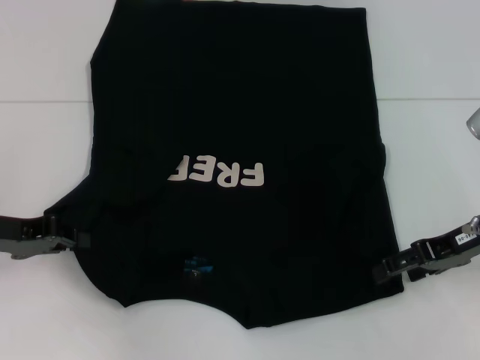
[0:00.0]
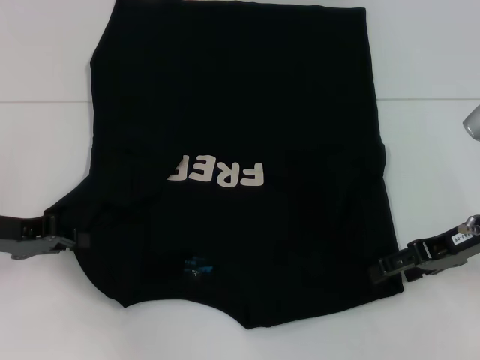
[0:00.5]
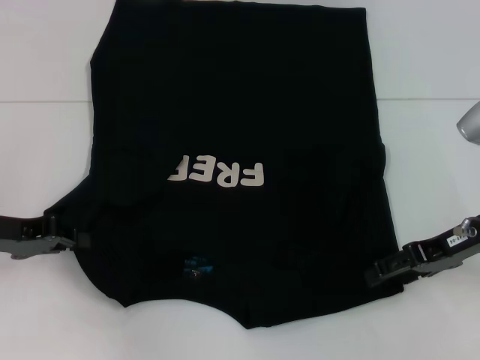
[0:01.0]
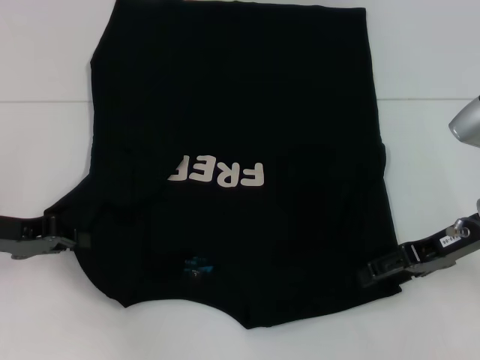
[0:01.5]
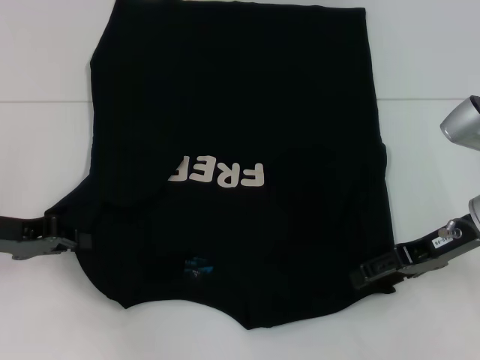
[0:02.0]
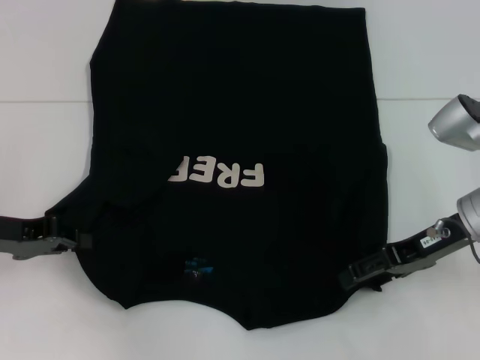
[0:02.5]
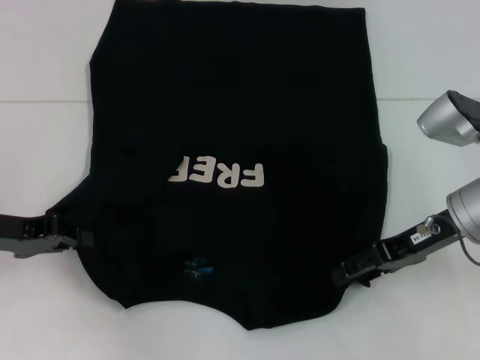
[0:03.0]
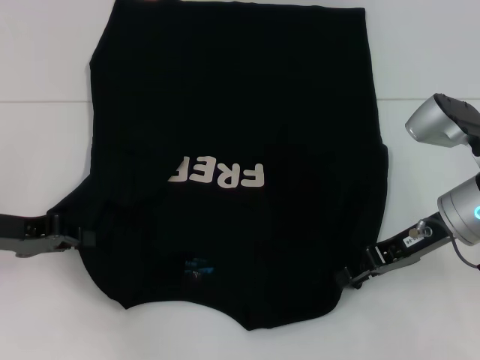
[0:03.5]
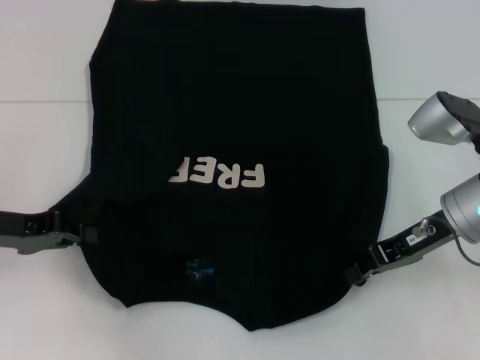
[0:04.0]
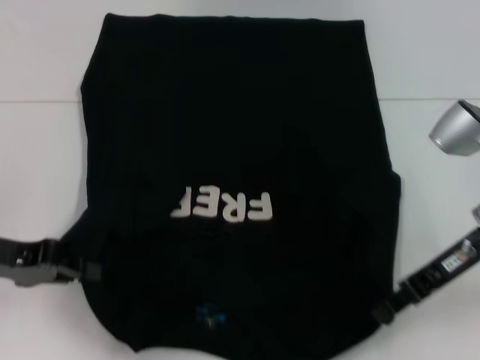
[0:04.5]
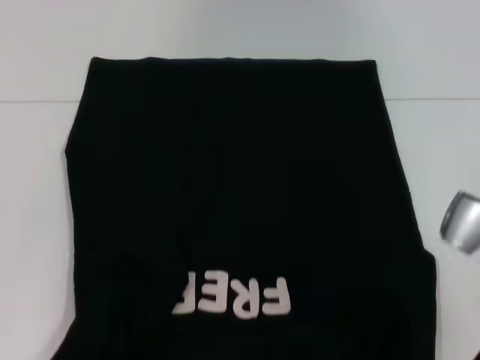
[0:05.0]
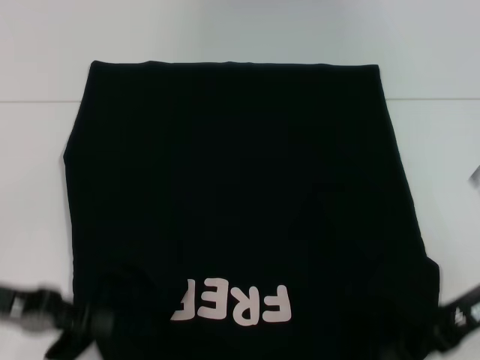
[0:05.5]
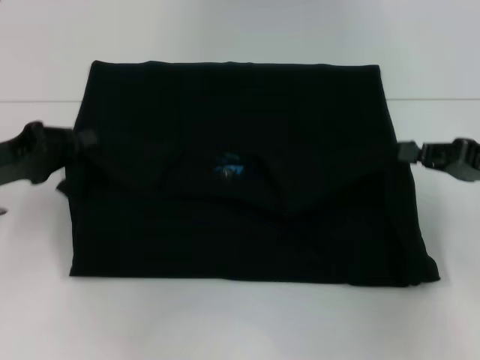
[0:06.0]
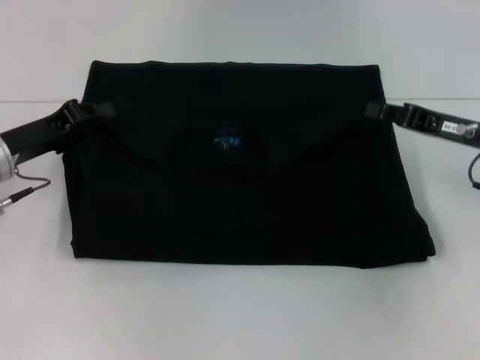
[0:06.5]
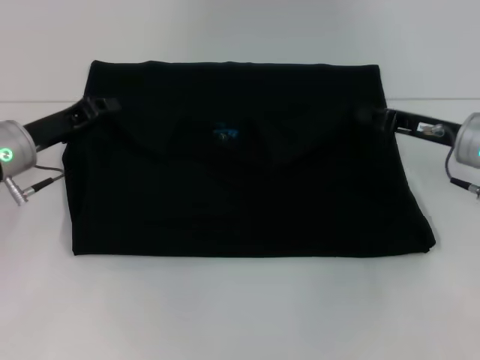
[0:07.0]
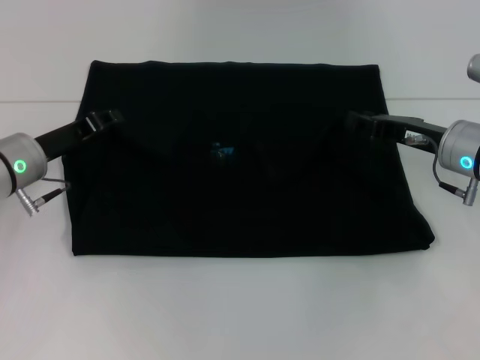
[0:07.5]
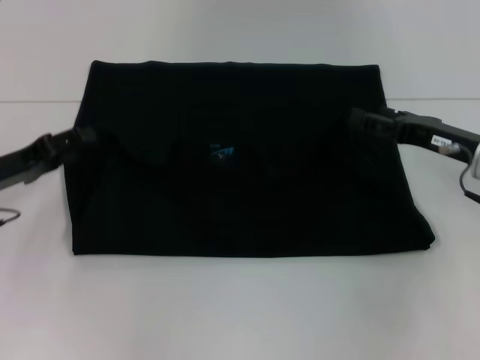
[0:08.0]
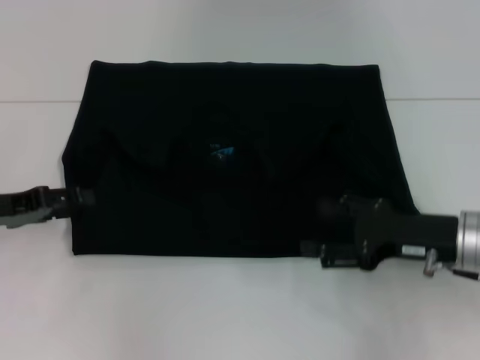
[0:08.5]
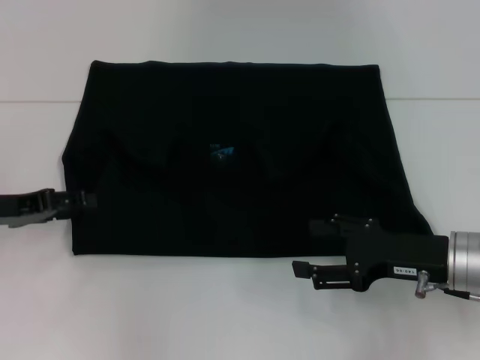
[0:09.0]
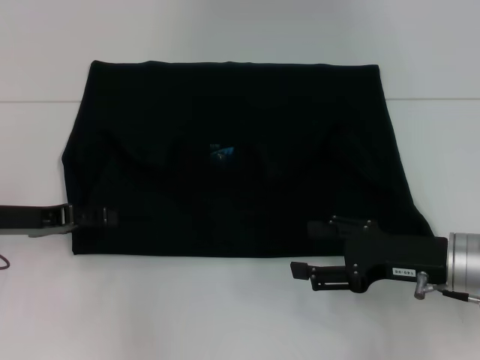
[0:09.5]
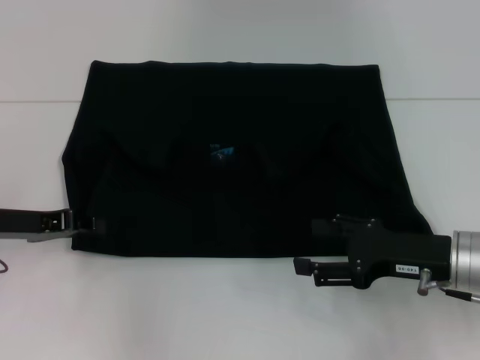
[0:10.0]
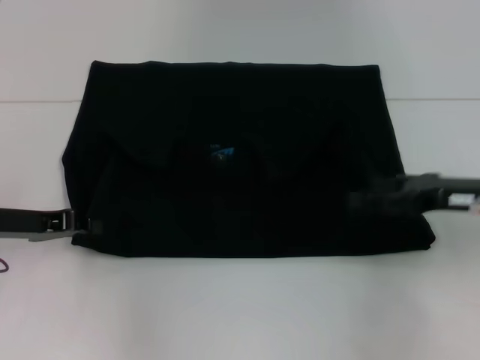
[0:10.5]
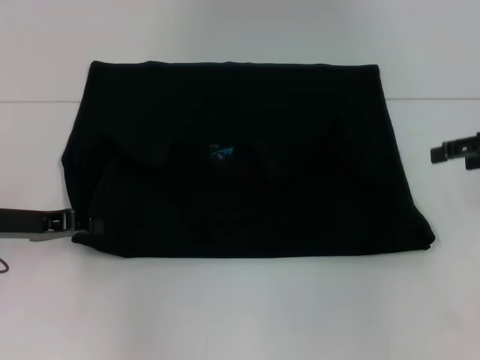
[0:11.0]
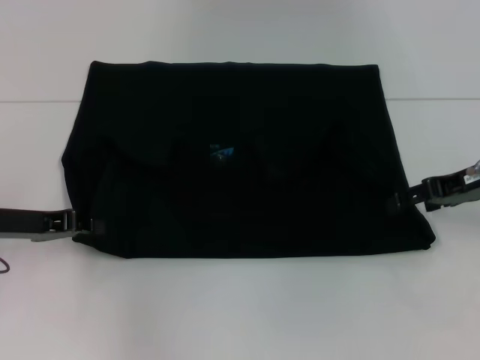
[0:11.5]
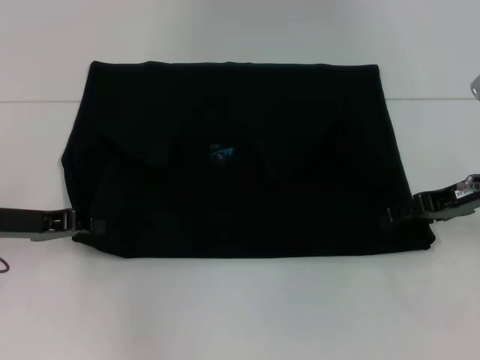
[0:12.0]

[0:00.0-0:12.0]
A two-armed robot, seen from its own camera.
Step, 0:00.0 to 0:04.0: Grab the bottom right corner with your right hand.
Step, 0:04.5 to 0:08.0: Fold the clothes with your left hand.
Step, 0:04.5 to 0:08.0: Fold the clothes with your right hand.
0:00.0 to 0:02.0: The grippers make only small movements.
0:02.0 to 0:04.0: The right gripper closes its fingers.
0:04.0 to 0:06.0: The left gripper moves approximately 10 cm backward and comes back, while the right gripper travels to the right by about 10 cm.
0:06.0 to 0:08.0: The left gripper opens up. Meanwhile the right gripper is displaced to the left by roughly 5 cm, and opens up.
0:08.0 to 0:10.0: The right gripper shifts some 10 cm backward, and opens.
0:10.0 to 0:12.0: The left gripper closes up. Meanwhile the right gripper heads forward and upward, covering about 10 cm.

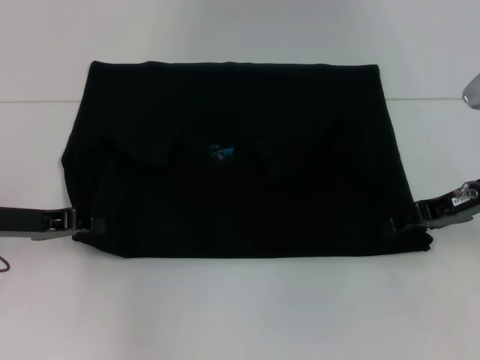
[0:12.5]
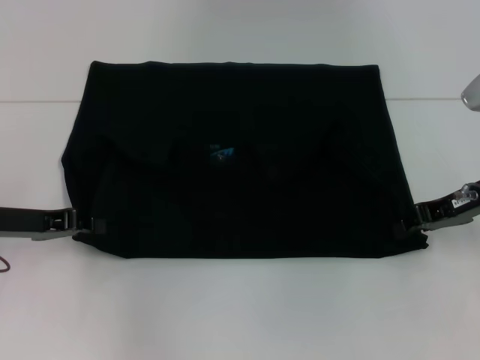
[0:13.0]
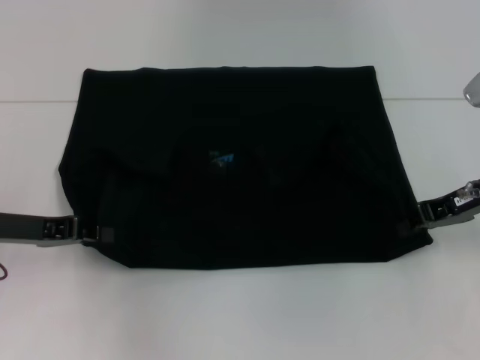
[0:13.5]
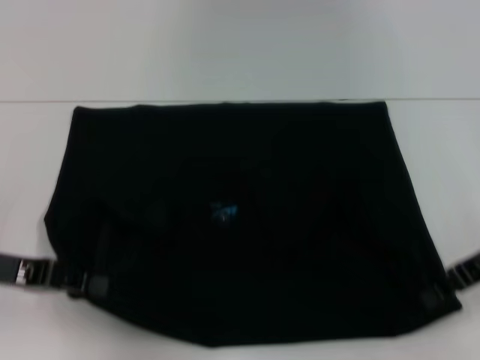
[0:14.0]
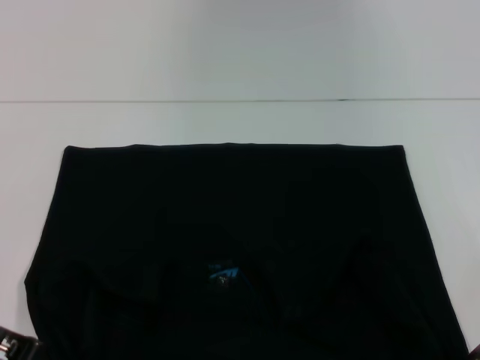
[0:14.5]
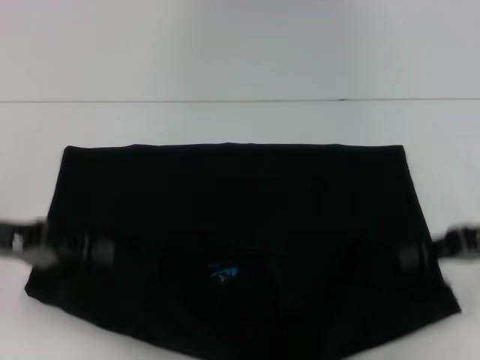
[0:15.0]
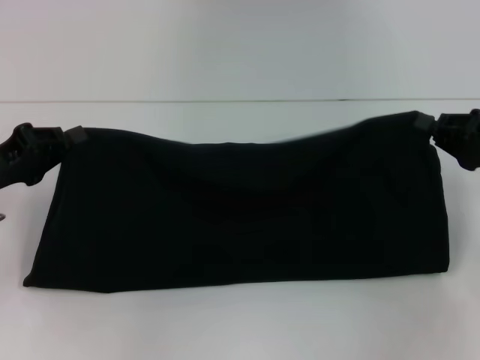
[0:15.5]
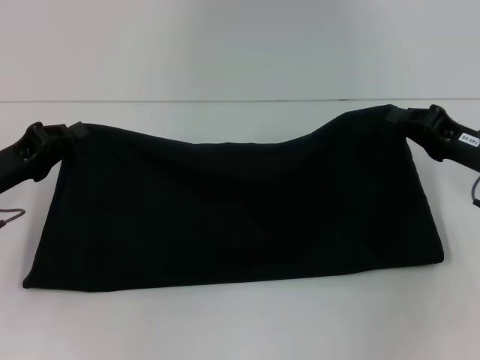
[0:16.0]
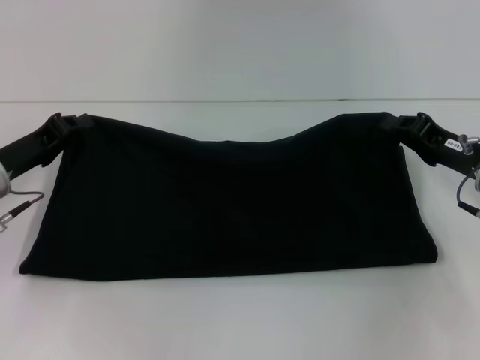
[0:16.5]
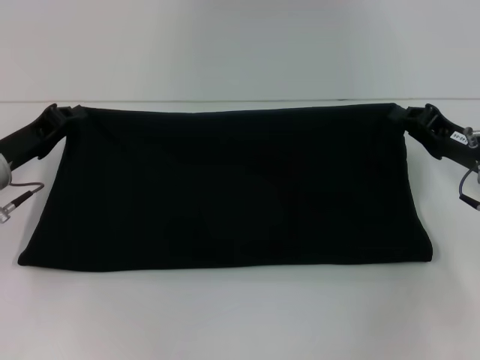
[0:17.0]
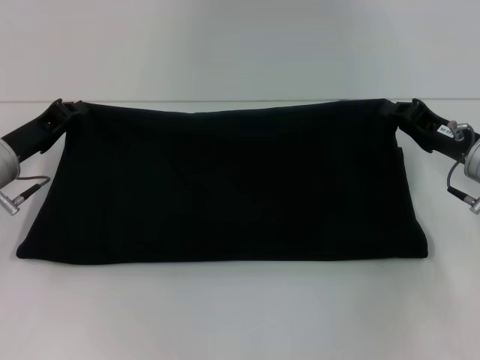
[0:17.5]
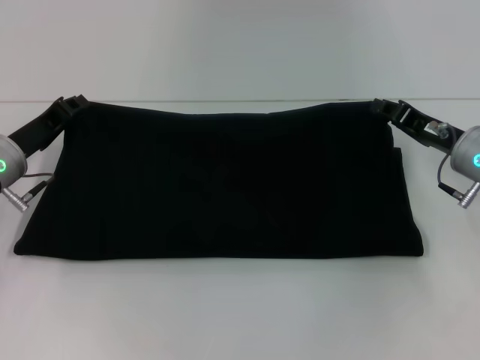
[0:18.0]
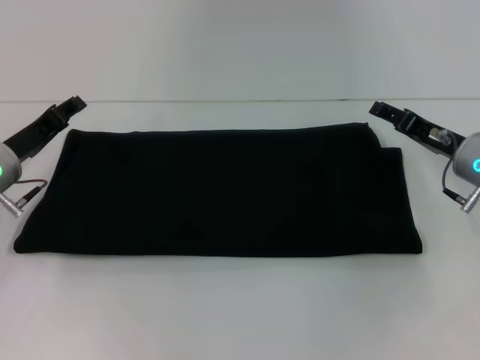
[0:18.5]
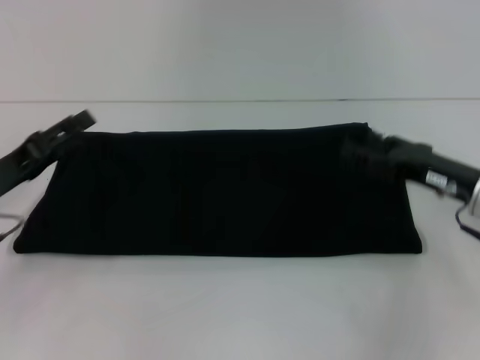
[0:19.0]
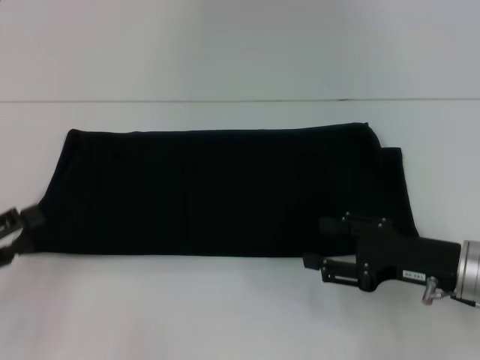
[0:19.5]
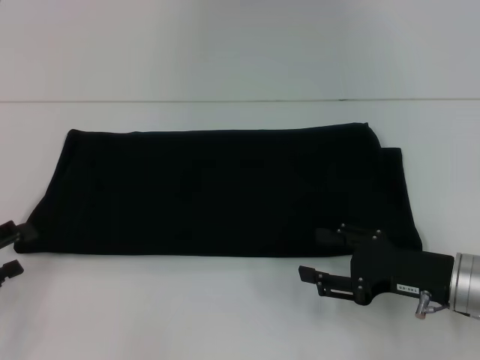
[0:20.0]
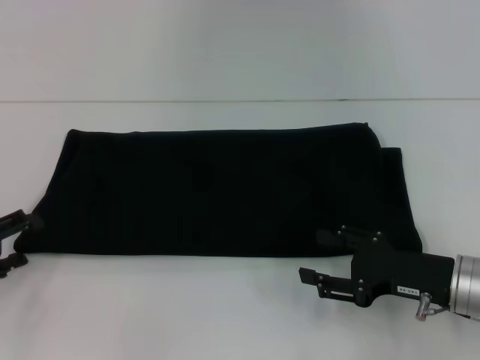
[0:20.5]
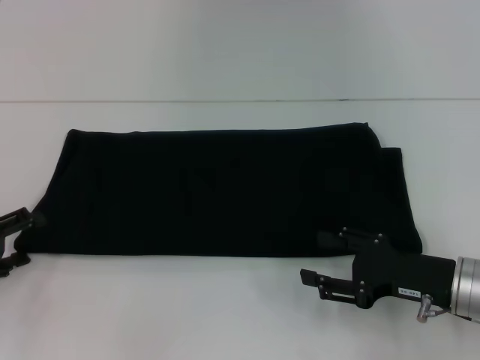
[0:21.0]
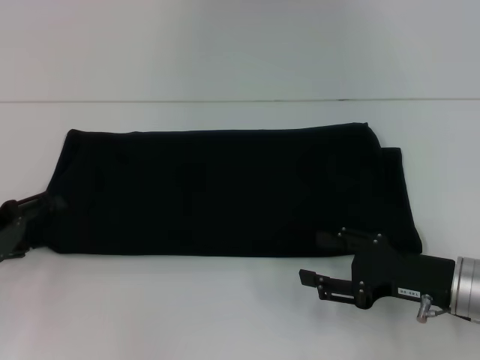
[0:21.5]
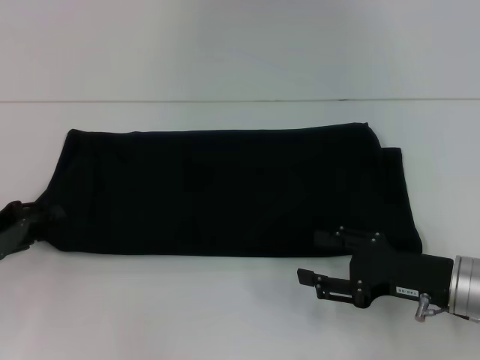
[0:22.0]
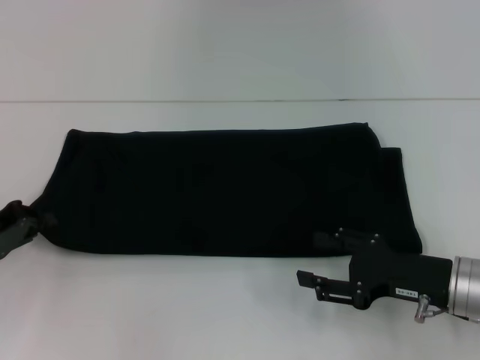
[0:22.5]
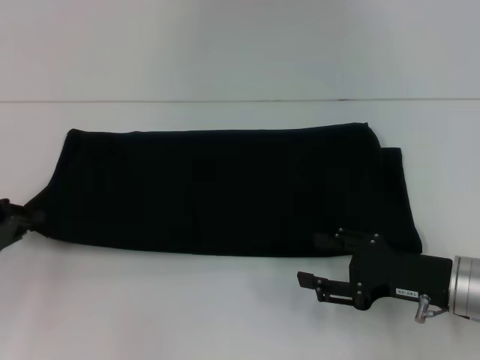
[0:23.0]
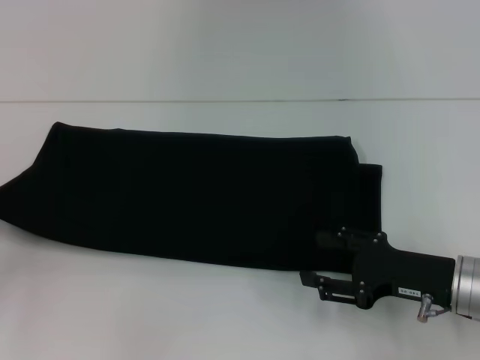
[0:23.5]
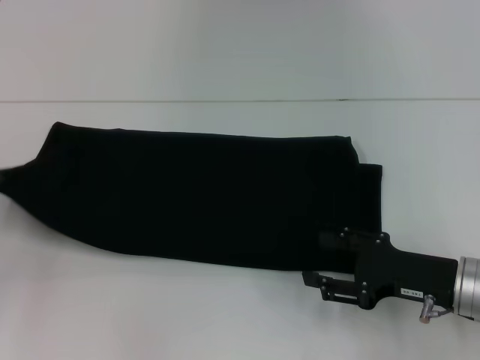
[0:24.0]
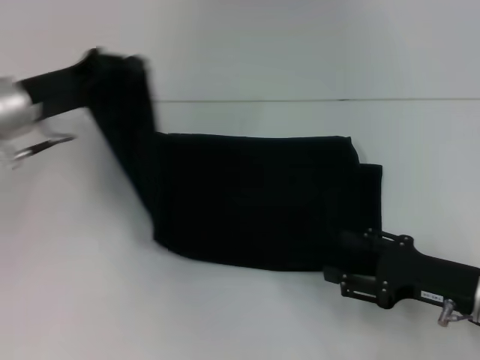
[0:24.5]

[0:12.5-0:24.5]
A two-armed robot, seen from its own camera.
Step, 0:14.5 to 0:18.5: Fold the clothes with your right hand.
0:12.5 to 0:14.5: Both grippers move backward, approximately 10 cm. The right gripper closes up.
0:14.5 to 0:16.5: Both grippers travel together forward, approximately 10 cm.
0:16.5 to 0:18.5: The right gripper opens its fingers, while the left gripper opens up.
0:18.5 to 0:20.5: The right gripper moves backward, about 10 cm, while the left gripper goes roughly 15 cm backward and to the left, and opens up.
0:20.5 to 0:22.5: The left gripper closes up.
0:22.5 to 0:24.5: The left gripper heads upward, to the right and forward, covering some 15 cm.

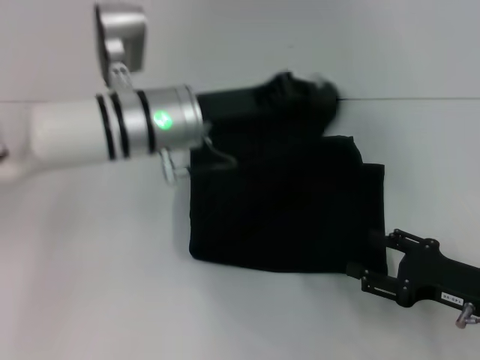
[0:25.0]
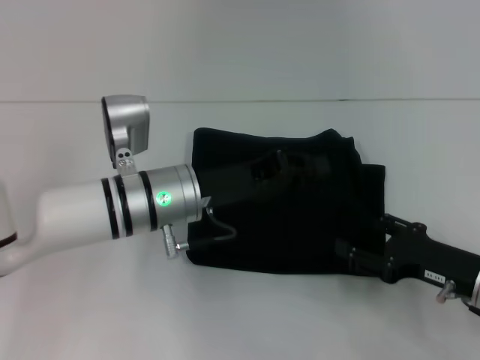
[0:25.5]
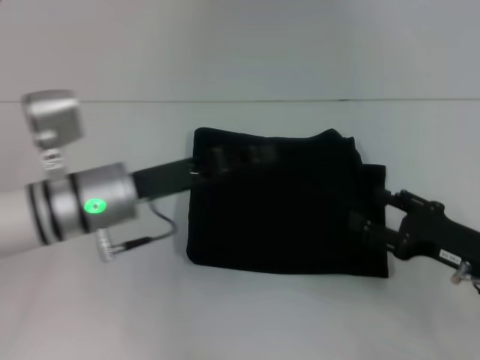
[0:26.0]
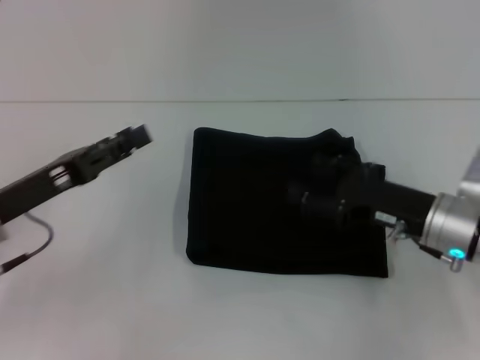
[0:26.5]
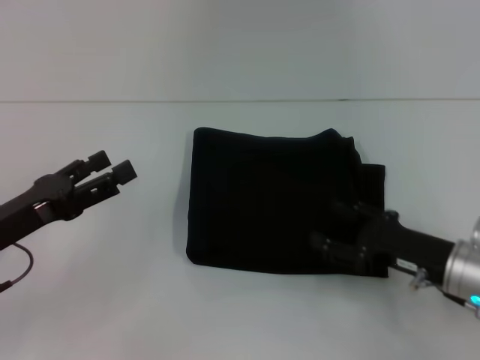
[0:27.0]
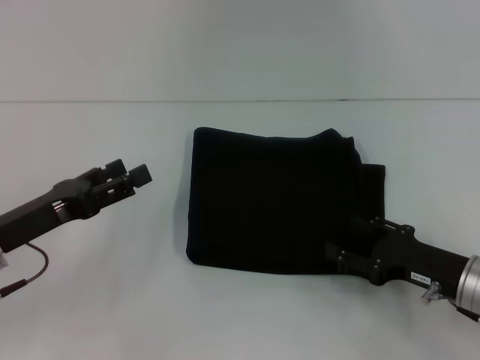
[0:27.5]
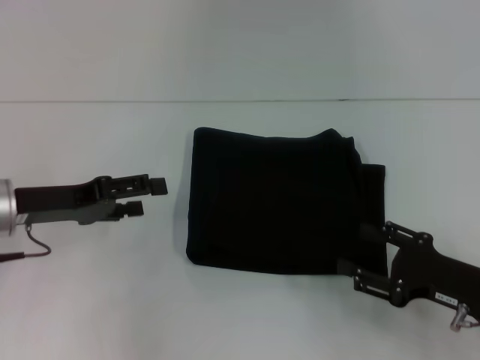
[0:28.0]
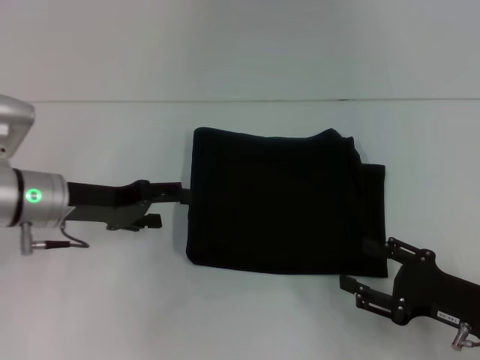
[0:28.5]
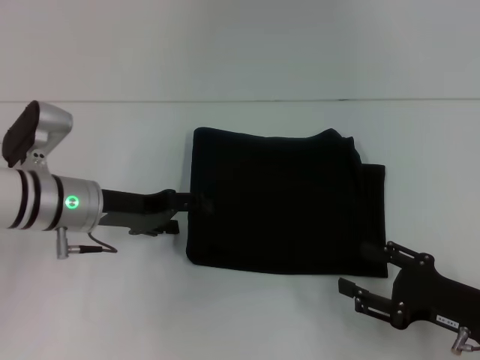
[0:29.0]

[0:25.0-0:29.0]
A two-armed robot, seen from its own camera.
0:25.0 to 0:27.0: The left gripper heads to the left and backward, covering approximately 20 cm, and opens.
0:27.0 to 0:29.0: The left gripper goes some 15 cm forward and to the right. Meanwhile the right gripper heads backward, covering roughly 5 cm.
